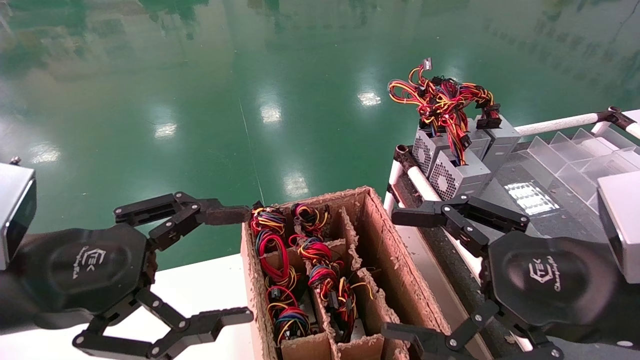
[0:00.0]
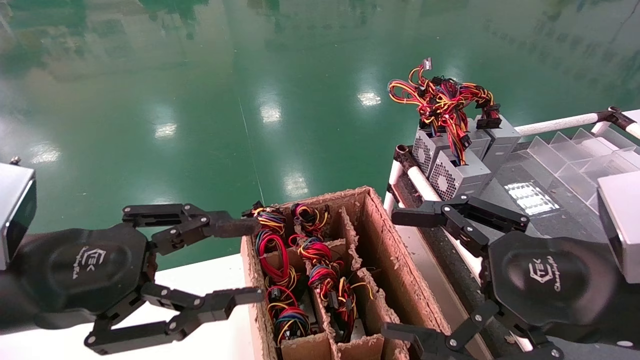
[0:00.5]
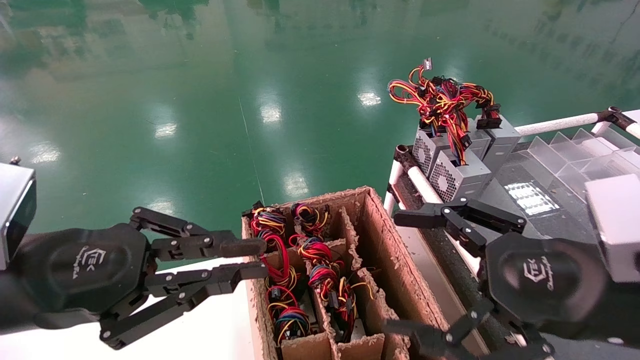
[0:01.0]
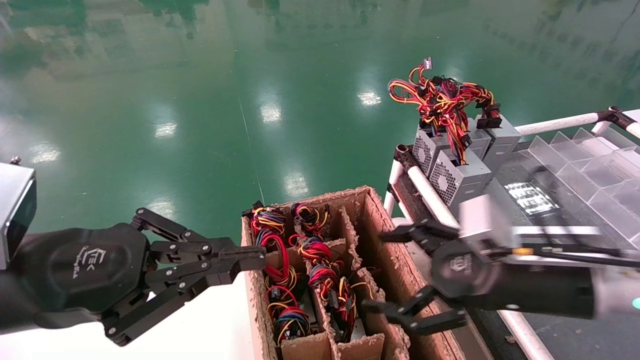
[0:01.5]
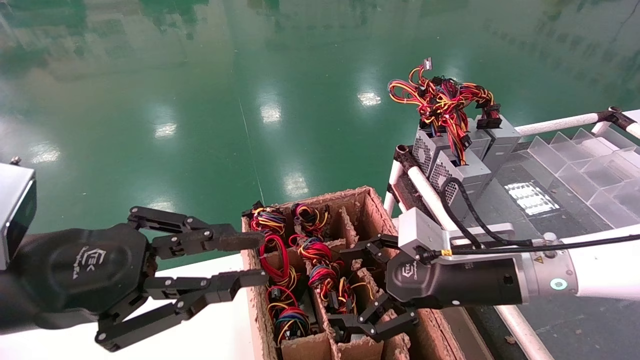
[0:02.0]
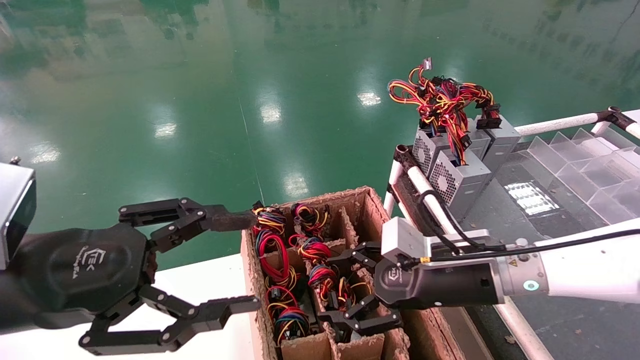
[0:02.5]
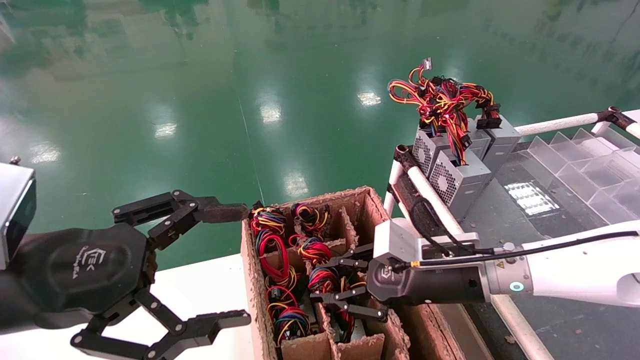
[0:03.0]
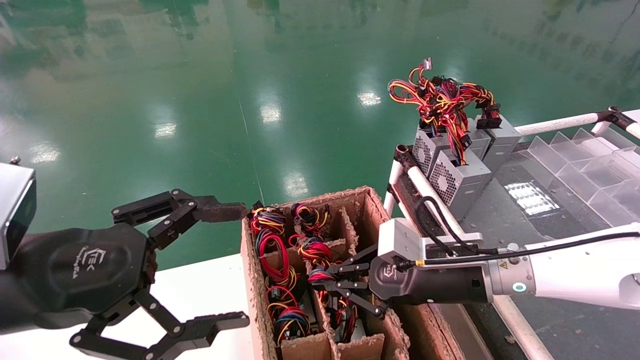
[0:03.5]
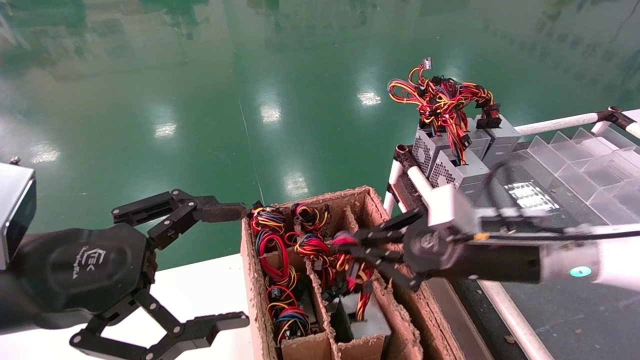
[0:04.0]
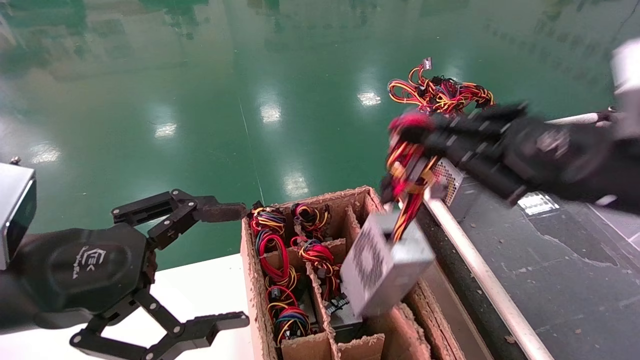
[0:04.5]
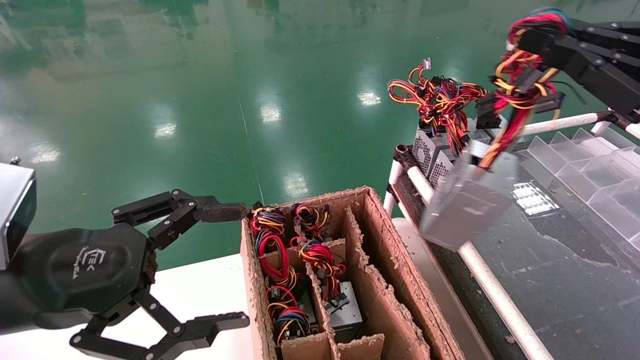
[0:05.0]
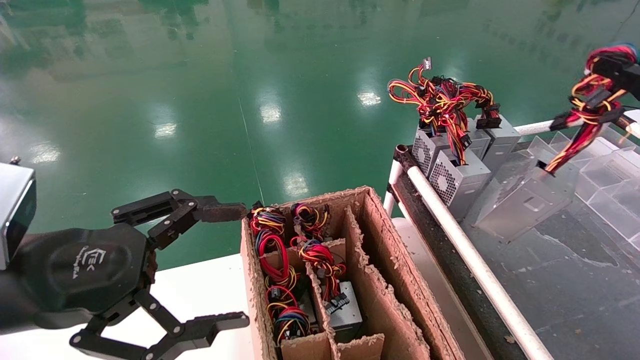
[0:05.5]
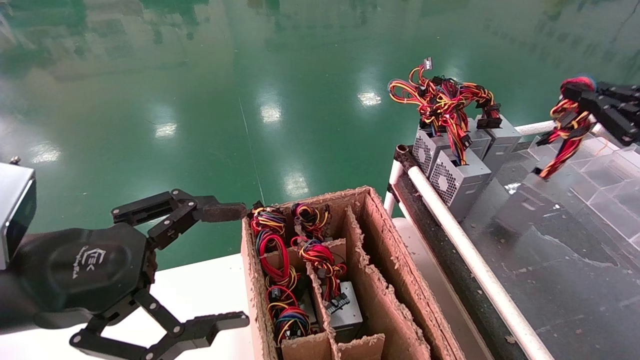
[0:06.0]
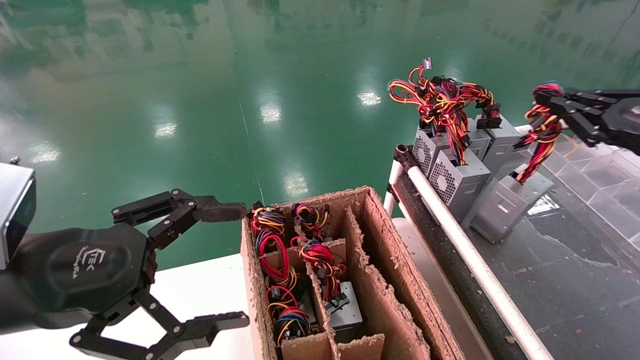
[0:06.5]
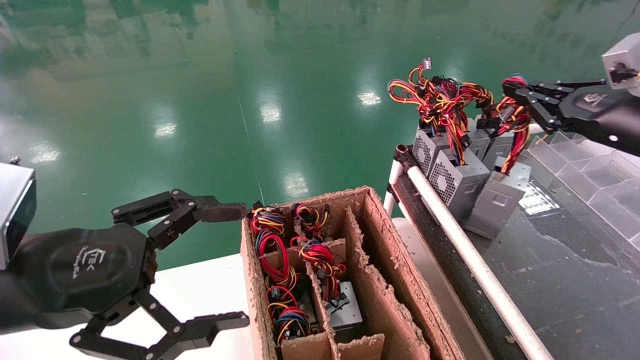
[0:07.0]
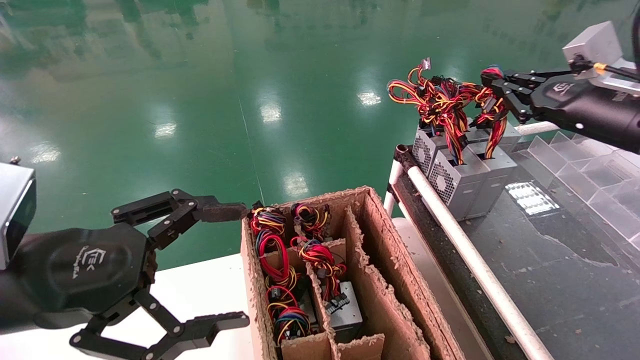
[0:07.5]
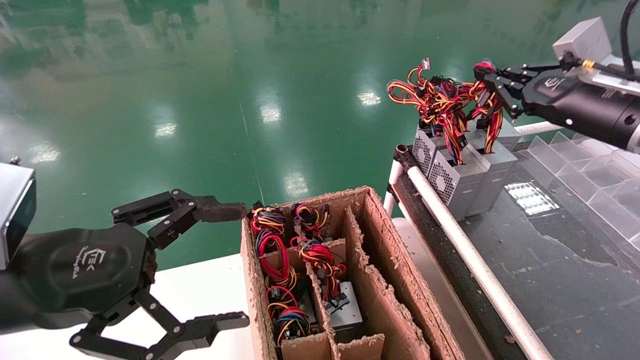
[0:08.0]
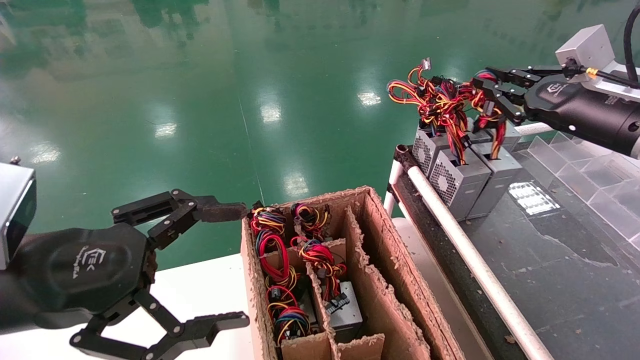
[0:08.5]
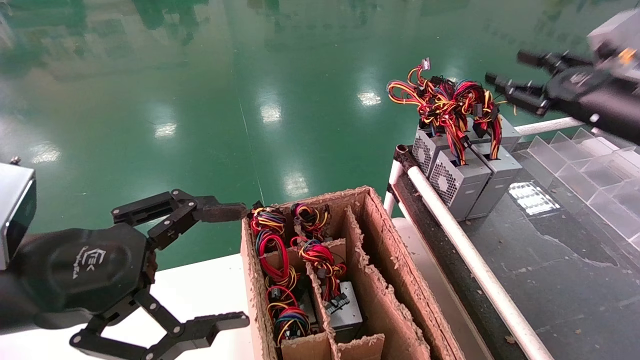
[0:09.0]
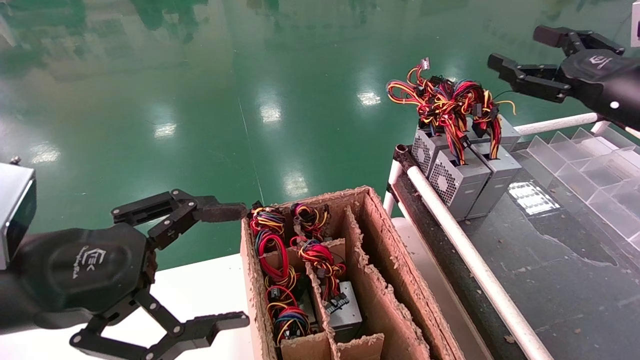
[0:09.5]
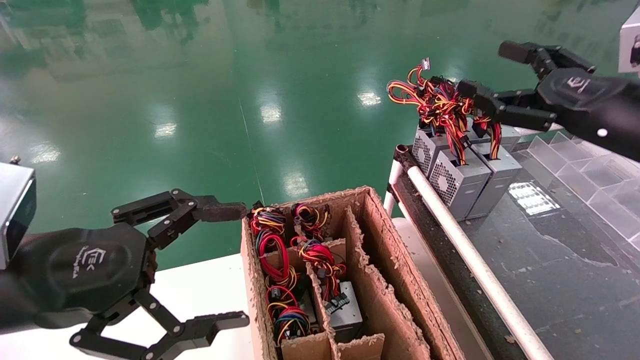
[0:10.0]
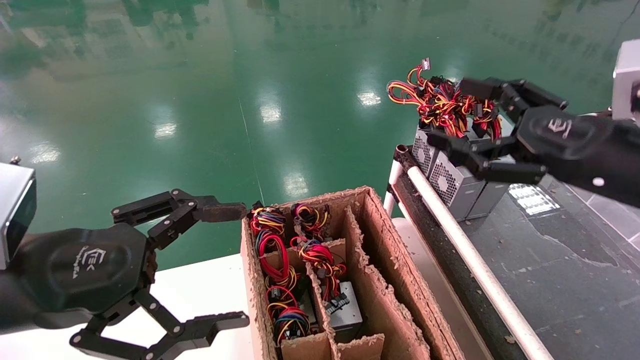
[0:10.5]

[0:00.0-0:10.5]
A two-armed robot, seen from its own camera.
Step, 0:01.5 to 0:03.5: Grab and lift the power supply from the large box.
Step, 0:04.0 to 0:08.0: Place the power supply on the operating table.
0:00.0 to 0:02.0: The left gripper closes up, while the right gripper moves forward, downward and to the left, about 15 cm.
0:02.0 to 0:04.0: The right gripper closes. Meanwhile the left gripper opens its fingers.
0:04.0 to 0:06.5: The right gripper heads to the right and upward, covering about 25 cm.
0:06.5 to 0:08.5: The right gripper travels to the left and forward by about 10 cm.
0:08.5 to 0:10.5: The right gripper travels backward and to the left by approximately 10 cm, and opens up.

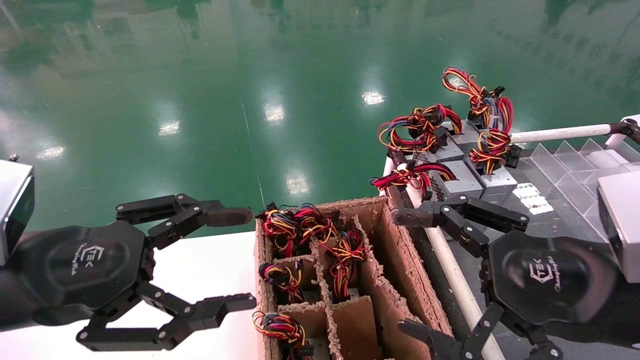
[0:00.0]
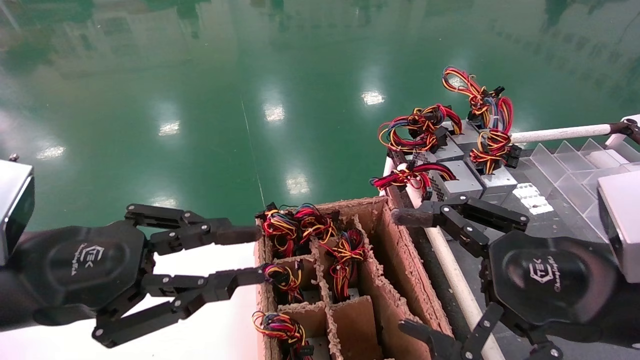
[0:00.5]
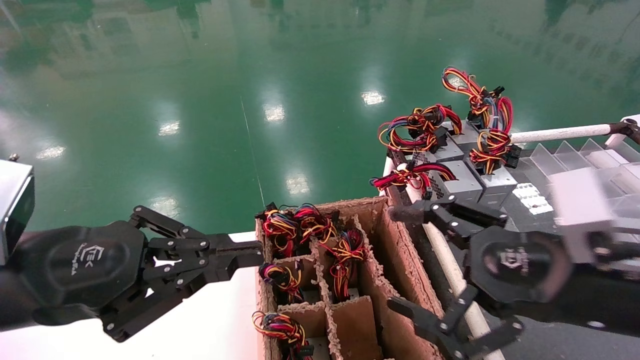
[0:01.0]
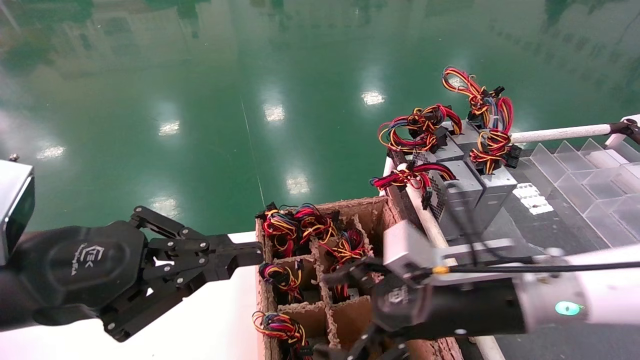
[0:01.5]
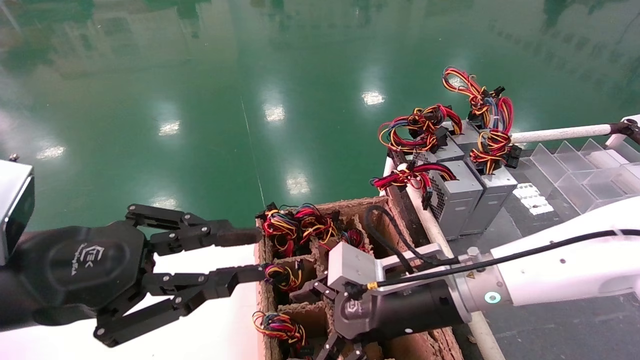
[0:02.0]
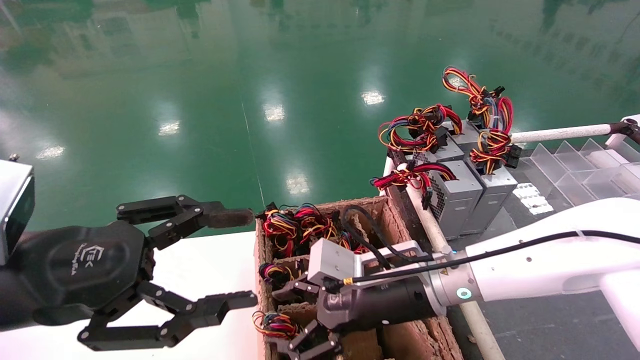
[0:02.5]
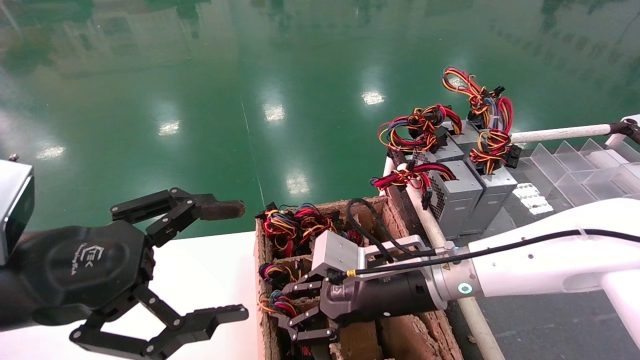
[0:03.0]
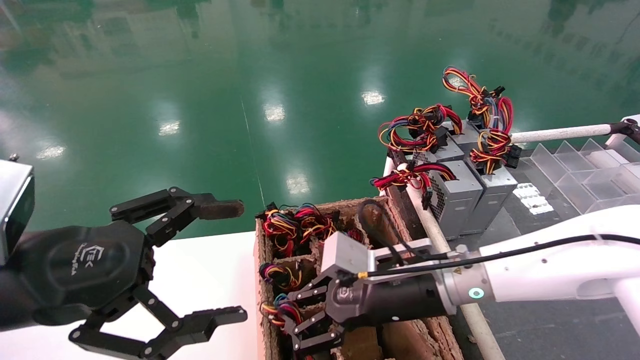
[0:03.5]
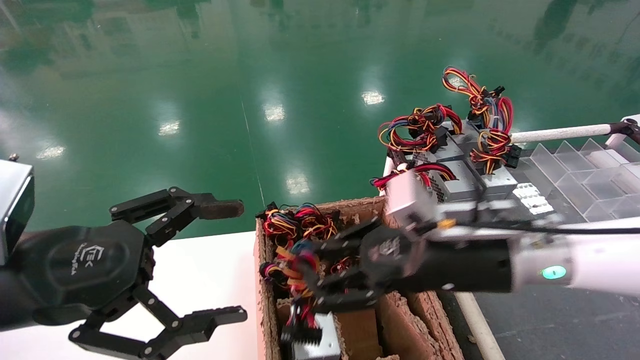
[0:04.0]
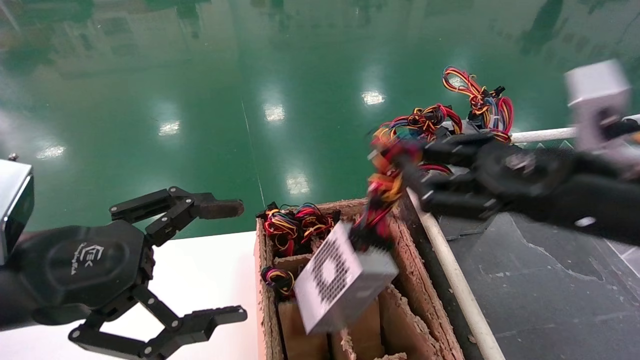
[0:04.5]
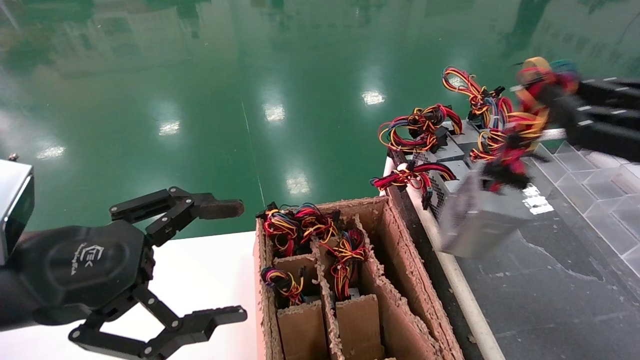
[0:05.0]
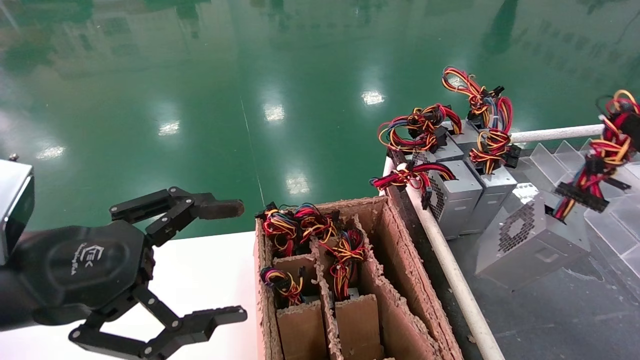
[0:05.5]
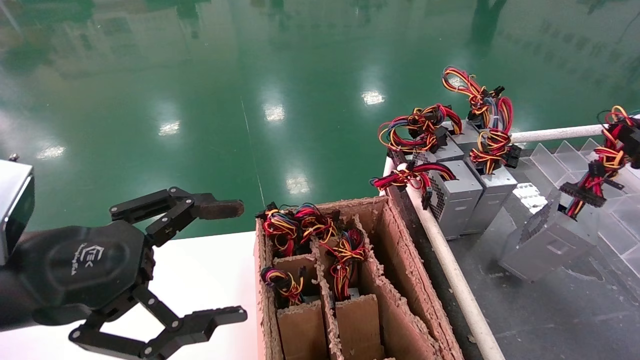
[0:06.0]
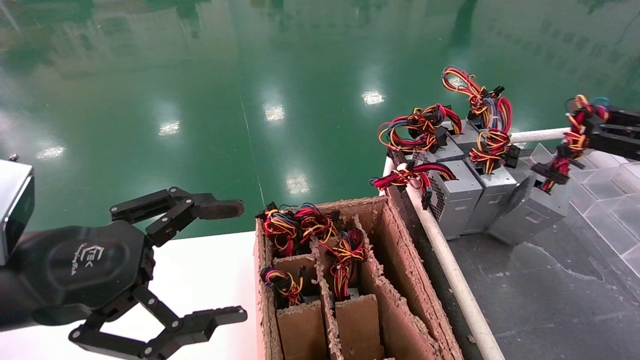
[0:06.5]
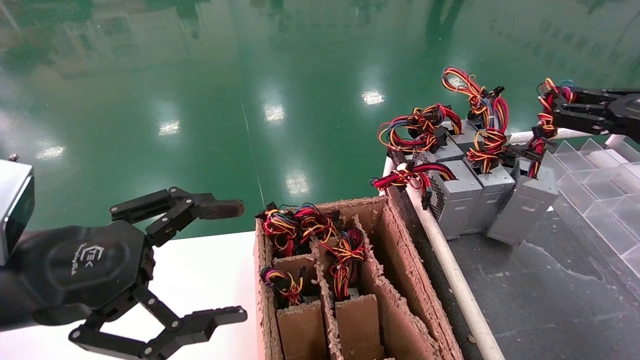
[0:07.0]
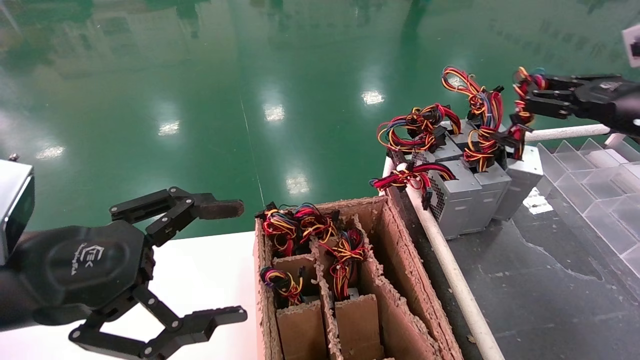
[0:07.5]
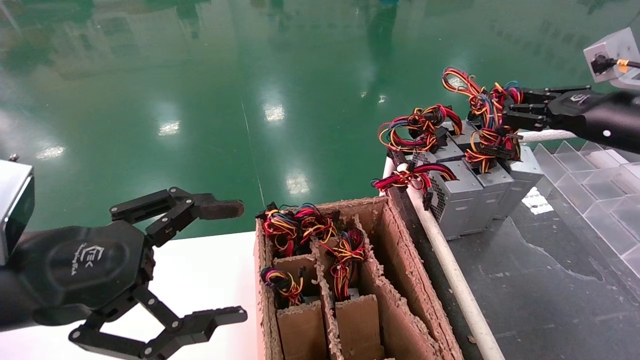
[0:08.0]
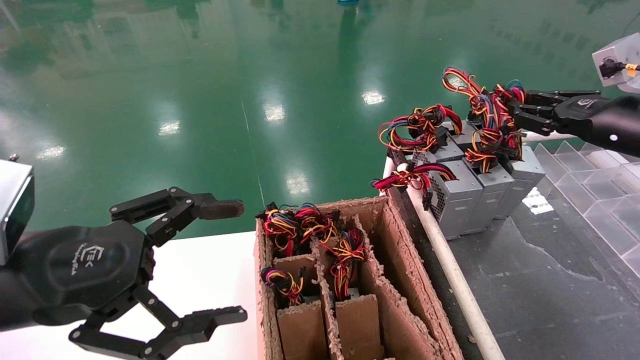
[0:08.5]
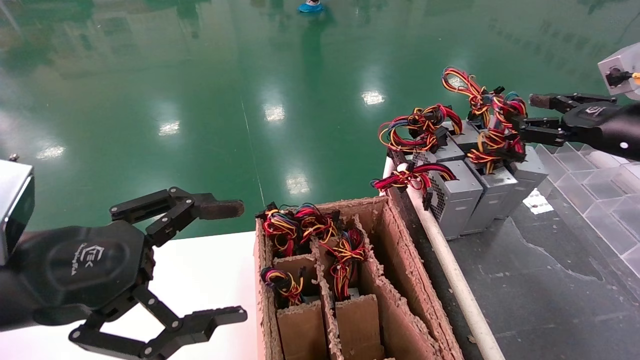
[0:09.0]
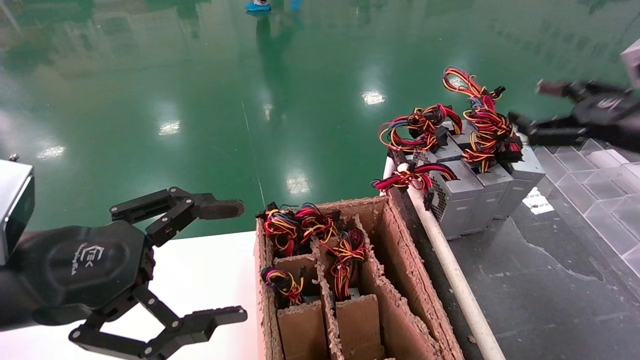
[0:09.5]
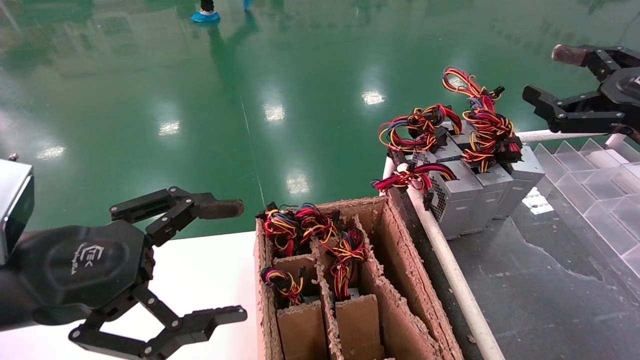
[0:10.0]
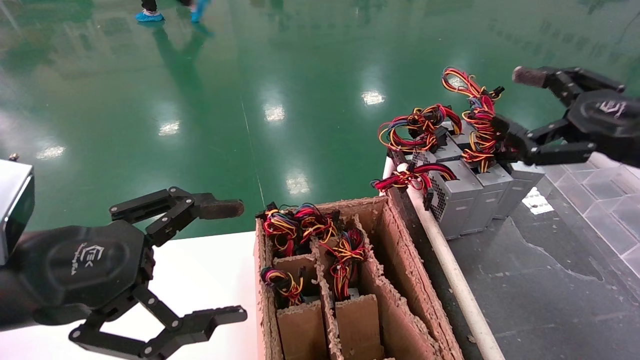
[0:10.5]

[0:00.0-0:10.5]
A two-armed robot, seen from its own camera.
Step, 0:01.0 to 0:03.0: Grab and lift the power supply from the large box.
Step, 0:03.5 to 0:08.0: Place the power supply on the operating table.
0:00.0 to 0:02.0: The right gripper goes roughly 20 cm to the left, forward and downward; the left gripper closes up.
0:02.0 to 0:04.0: The left gripper opens its fingers. Meanwhile the right gripper goes some 5 cm upward, and closes.
0:04.0 to 0:06.5: The right gripper shifts some 30 cm to the right.
0:06.5 to 0:08.5: The right gripper is displaced forward and to the left by approximately 10 cm.
0:08.5 to 0:10.5: The right gripper is displaced backward by about 10 cm, and opens up.
